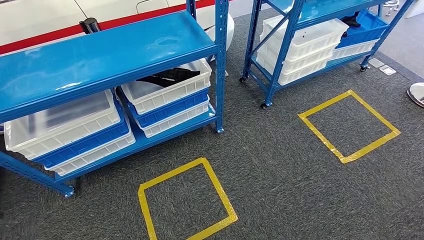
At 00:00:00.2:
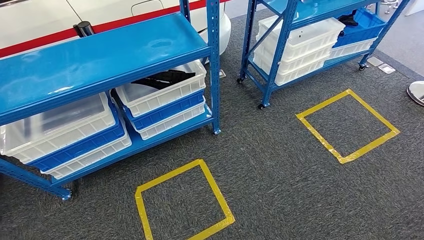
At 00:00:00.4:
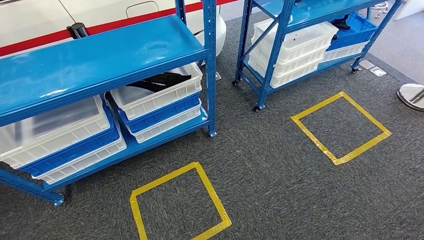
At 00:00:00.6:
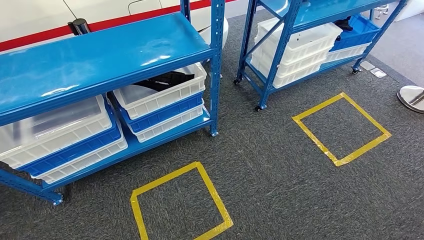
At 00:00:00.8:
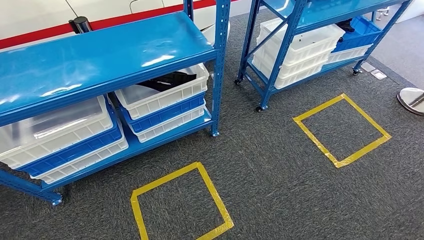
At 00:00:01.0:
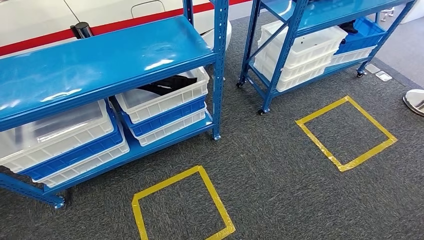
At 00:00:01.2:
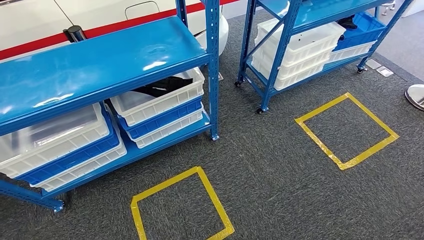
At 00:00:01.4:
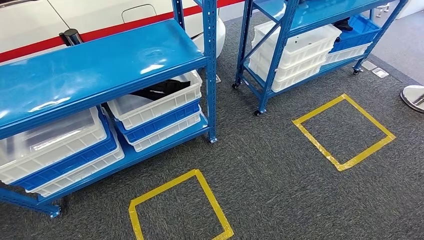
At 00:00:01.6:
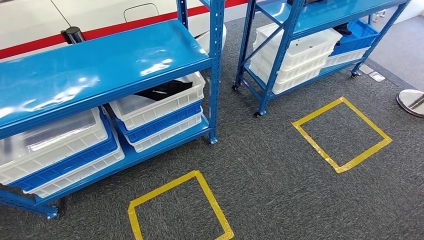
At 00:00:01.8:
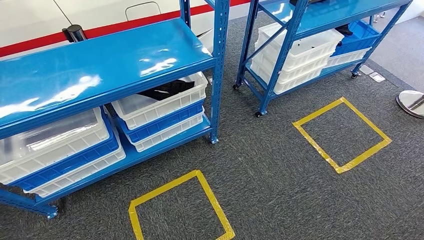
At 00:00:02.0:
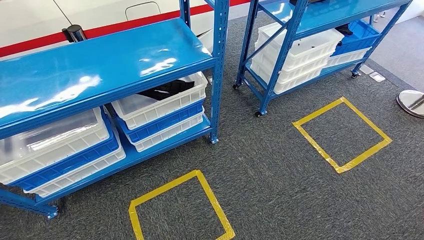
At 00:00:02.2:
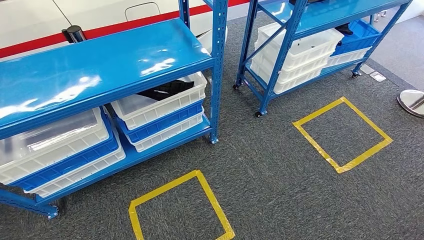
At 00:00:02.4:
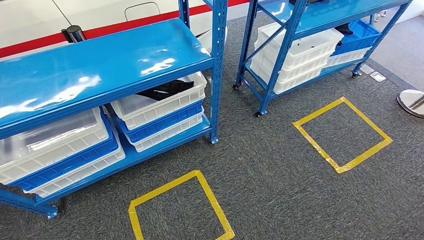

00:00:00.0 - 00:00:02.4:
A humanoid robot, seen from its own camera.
Step, 00:00:00.0 - 00:00:02.4: Move to the initial position of the shelf.
